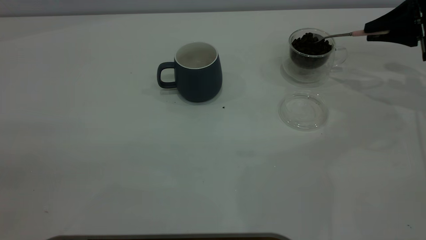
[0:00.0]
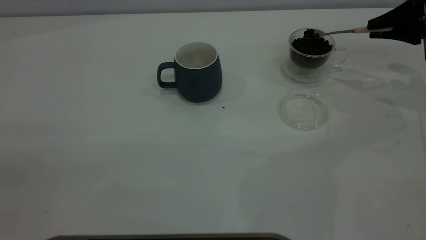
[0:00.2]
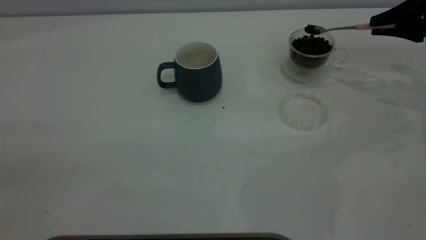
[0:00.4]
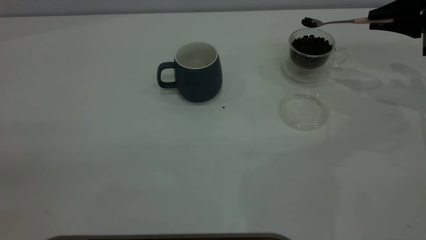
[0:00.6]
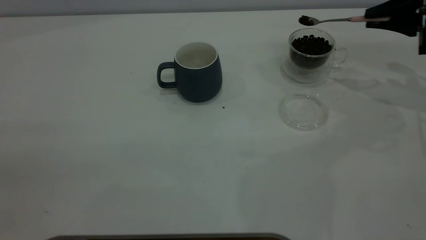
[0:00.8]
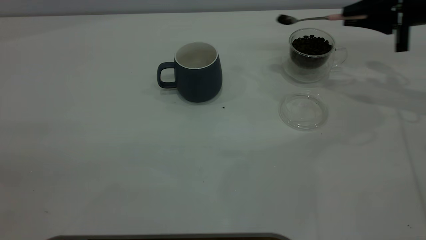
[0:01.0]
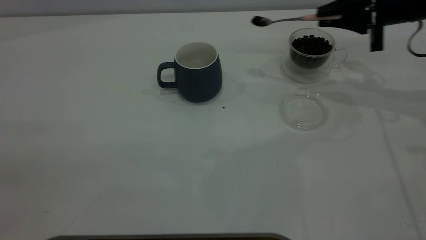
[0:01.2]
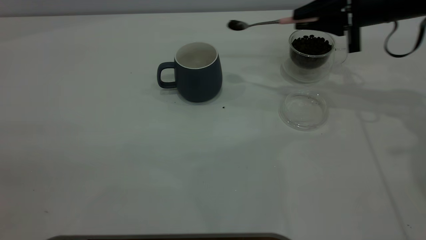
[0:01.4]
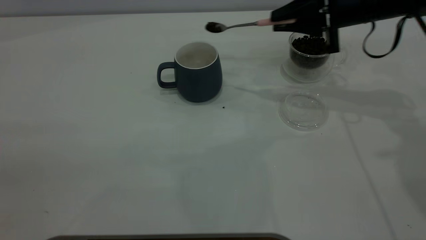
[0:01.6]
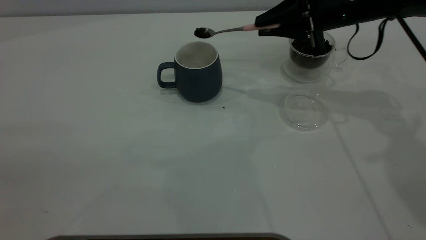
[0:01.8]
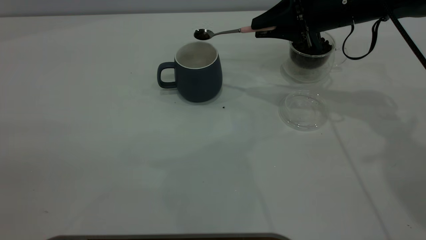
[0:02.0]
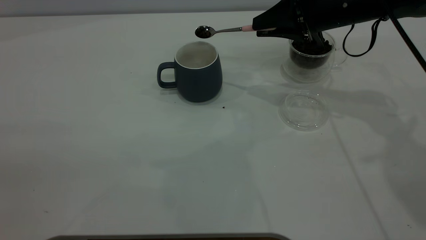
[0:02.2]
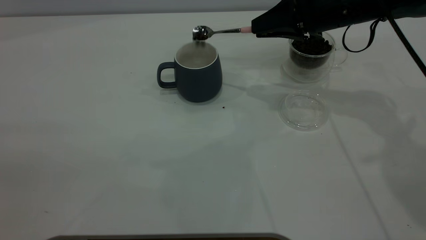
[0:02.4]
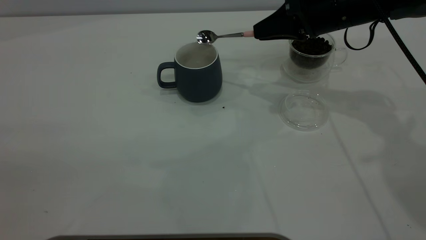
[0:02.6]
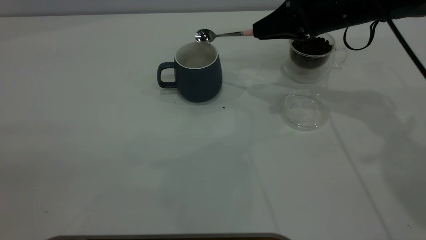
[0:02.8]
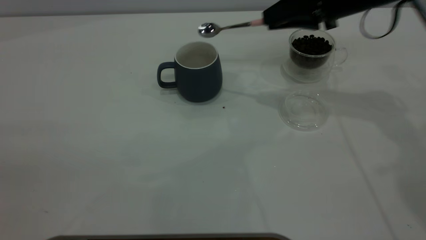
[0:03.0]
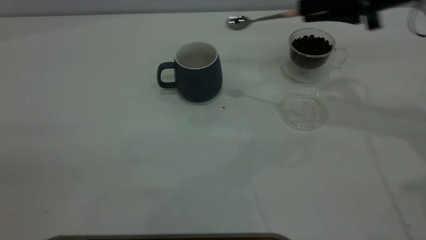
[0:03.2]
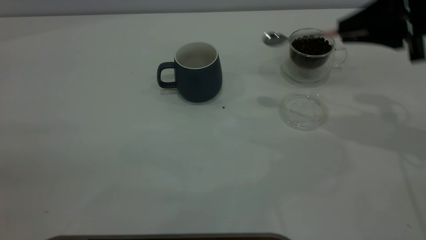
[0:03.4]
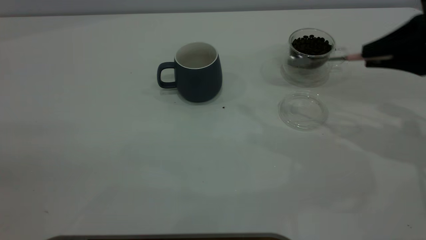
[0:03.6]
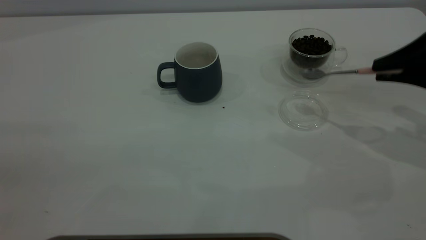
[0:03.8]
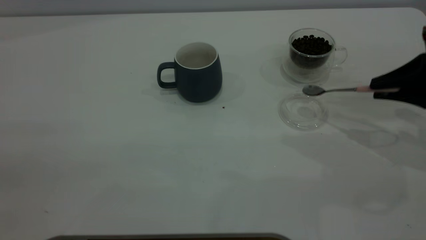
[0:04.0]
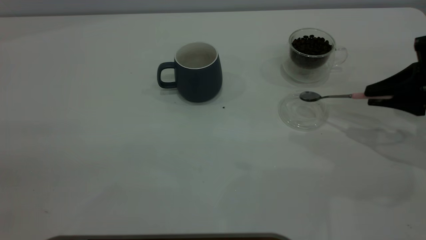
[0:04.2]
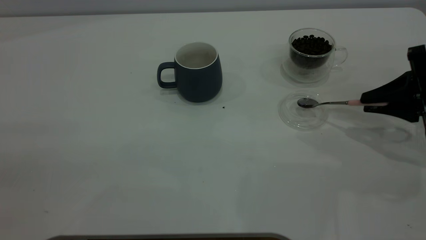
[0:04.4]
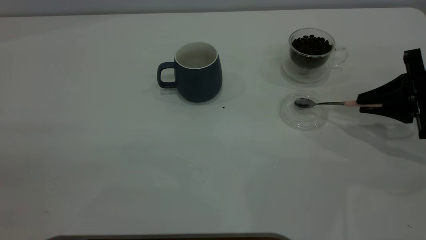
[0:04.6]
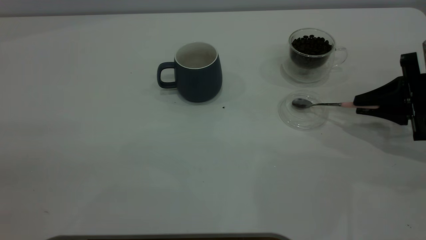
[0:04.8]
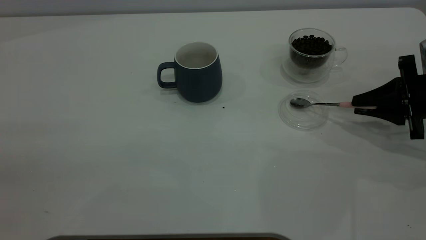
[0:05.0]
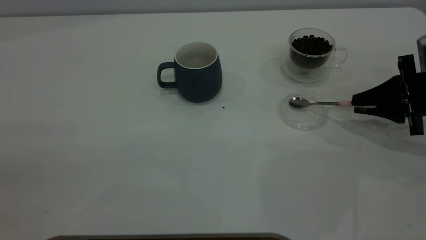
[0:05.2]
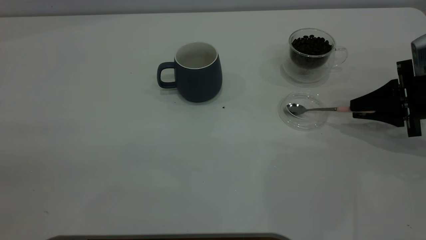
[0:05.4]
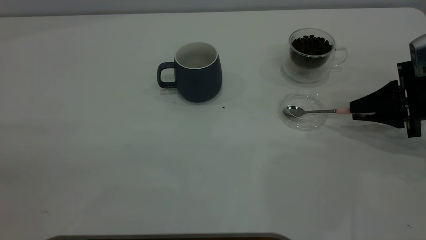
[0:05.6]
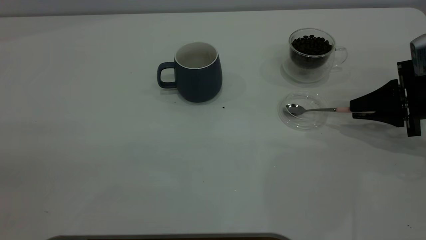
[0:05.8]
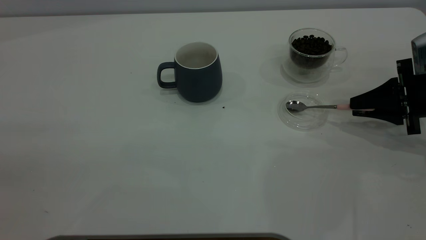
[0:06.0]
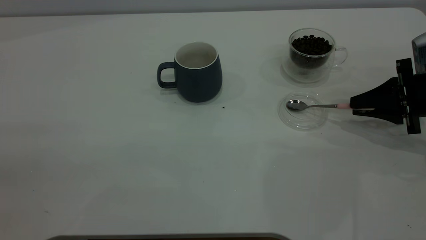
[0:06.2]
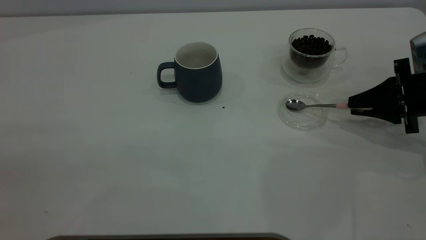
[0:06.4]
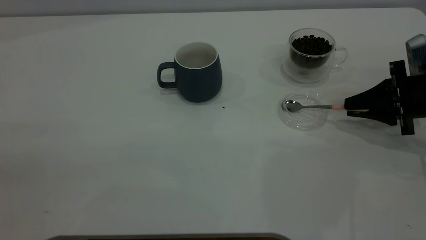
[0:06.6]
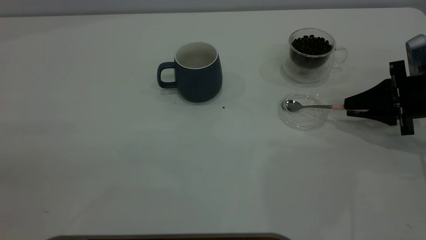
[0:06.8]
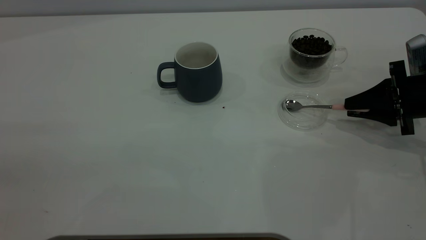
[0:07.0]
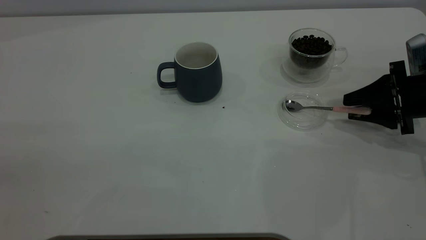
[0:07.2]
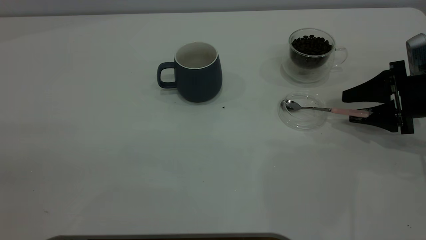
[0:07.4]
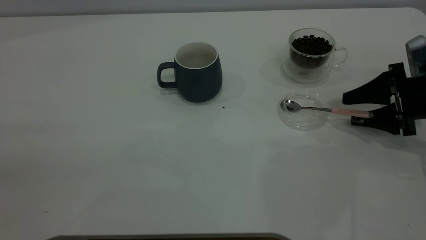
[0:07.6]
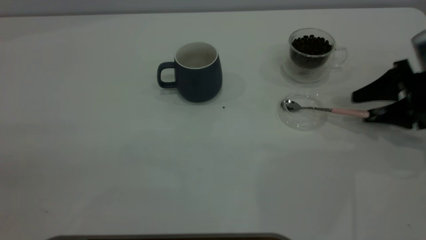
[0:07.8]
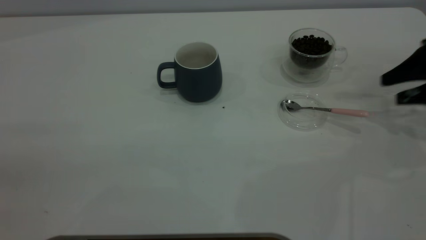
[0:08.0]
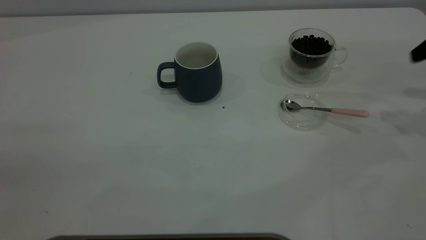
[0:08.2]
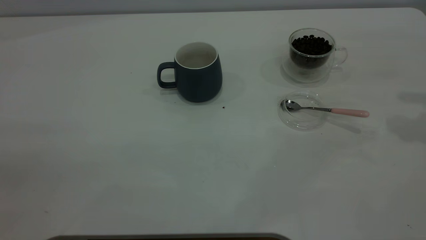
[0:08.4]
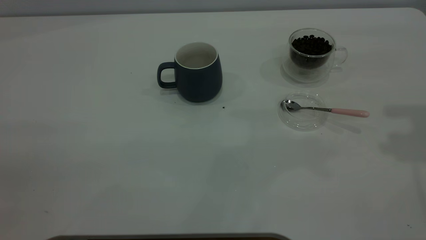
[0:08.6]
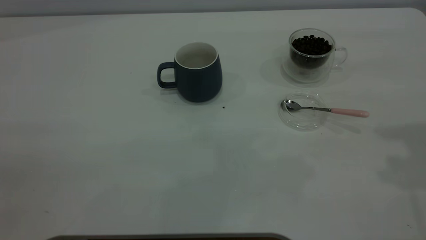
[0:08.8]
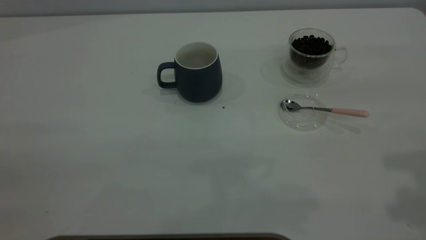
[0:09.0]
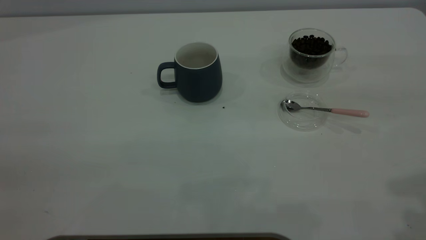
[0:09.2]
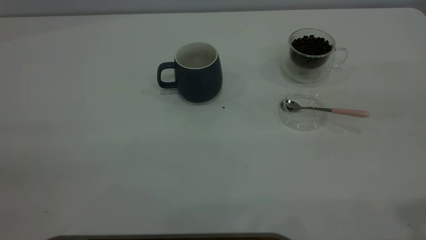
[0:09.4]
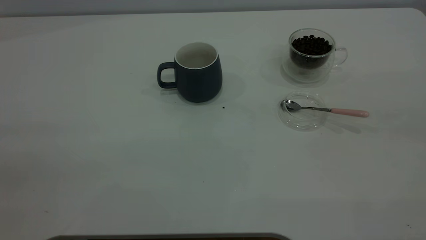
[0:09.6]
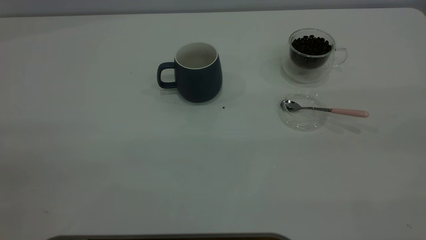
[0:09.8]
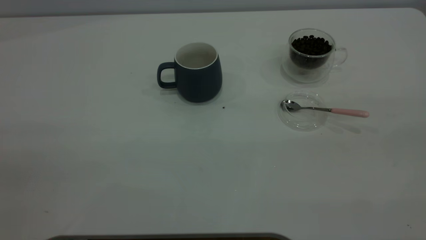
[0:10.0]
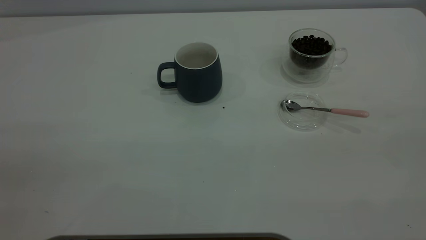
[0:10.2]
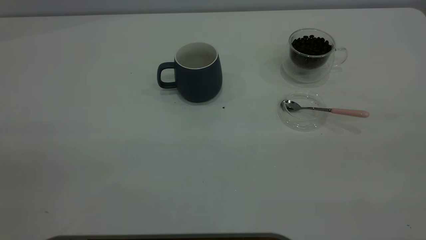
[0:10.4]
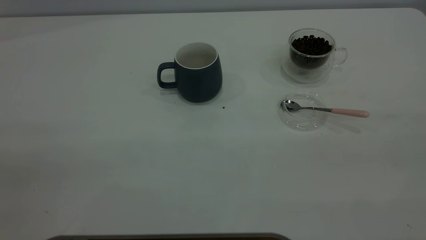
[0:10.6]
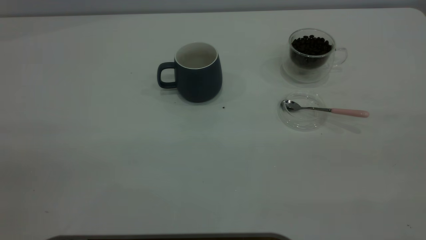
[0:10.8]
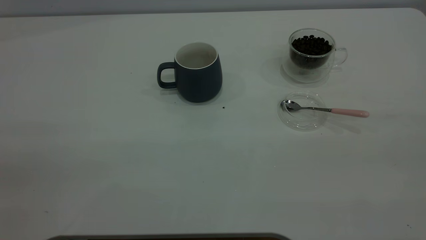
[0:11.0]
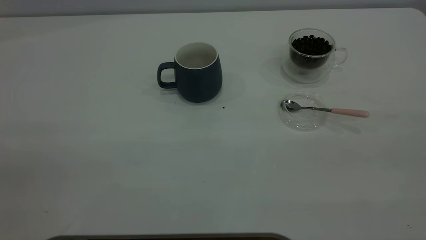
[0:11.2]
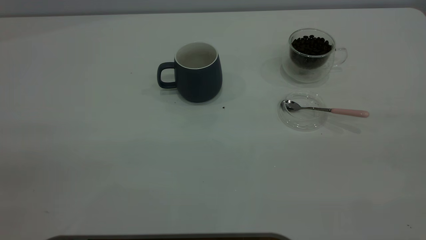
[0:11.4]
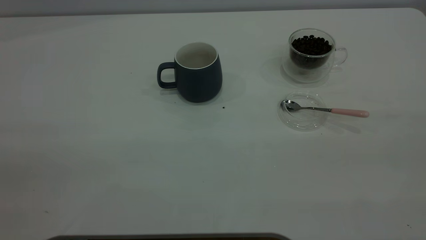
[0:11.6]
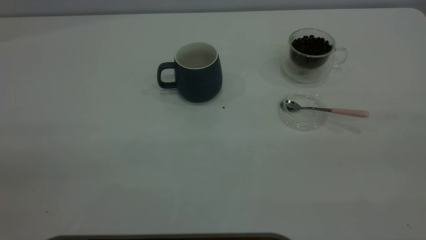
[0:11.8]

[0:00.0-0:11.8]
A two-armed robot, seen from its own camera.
Task of the whole recording: the left gripper place the grey cup in the center of the table, the right gripper take the pink spoon from the cup lid and scoop out the coffee beans from the coffee cup and put them into the grey cup, the right gripper put the spoon back into the cup lid.
Step, 0:00.0 to 0:02.8: Scoop a spoonful of beans into the cup.
Step, 0:03.0 to 0:07.8: Place the spoon back in its original place.
0:00.0 to 0:01.4: The right gripper heads to the left, covering some 15 cm.
0:01.4 to 0:03.0: The right gripper changes place by roughly 5 cm.
0:03.0 to 0:04.4: The right gripper goes about 20 cm to the right, downward and backward.
0:04.4 to 0:06.0: The grippers move only a little.
0:06.0 to 0:07.4: The right gripper opens its fingers.
0:07.4 to 0:08.8: The right gripper travels upward by about 30 cm.
0:10.4 to 0:11.8: Both grippers stay about where they are.

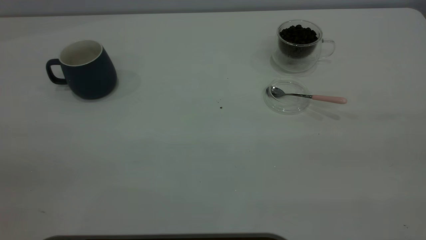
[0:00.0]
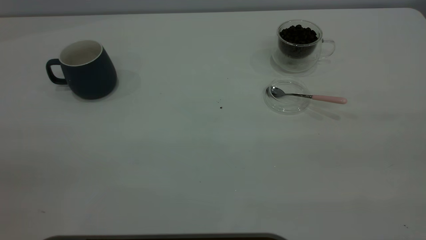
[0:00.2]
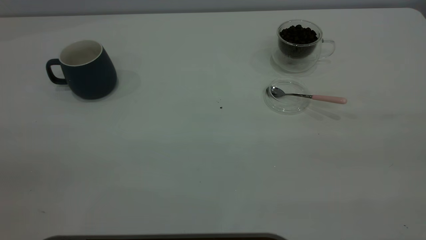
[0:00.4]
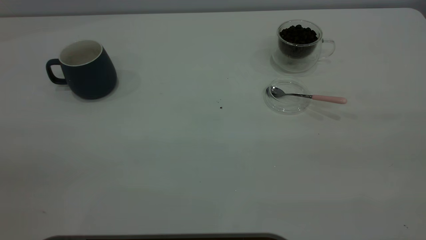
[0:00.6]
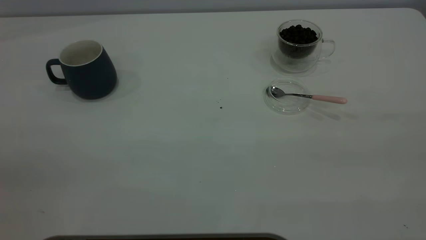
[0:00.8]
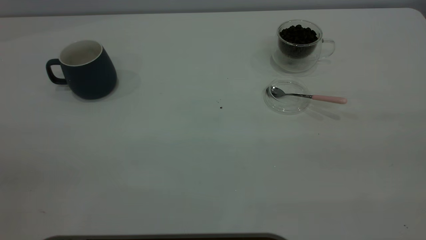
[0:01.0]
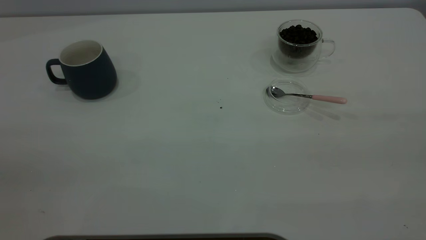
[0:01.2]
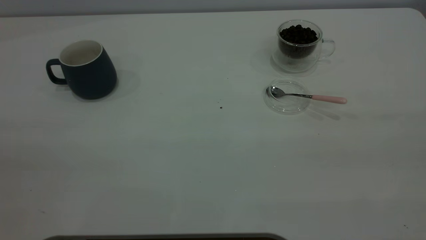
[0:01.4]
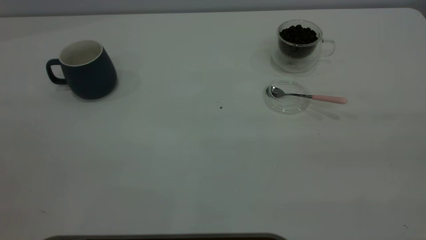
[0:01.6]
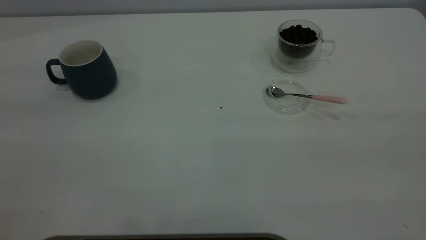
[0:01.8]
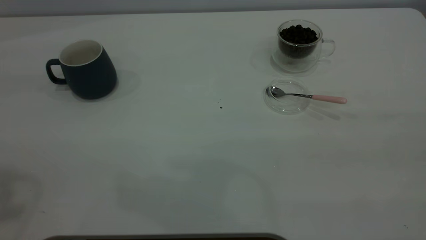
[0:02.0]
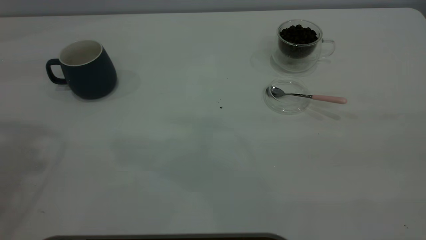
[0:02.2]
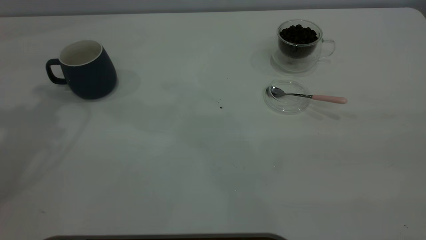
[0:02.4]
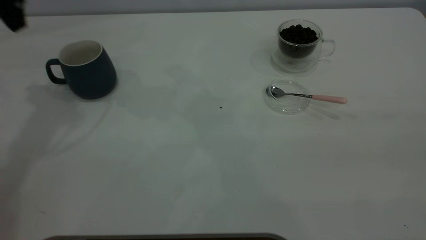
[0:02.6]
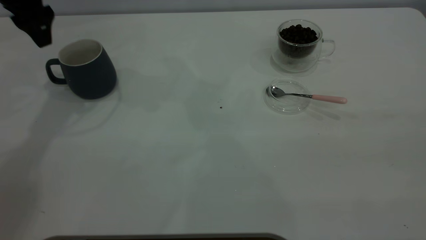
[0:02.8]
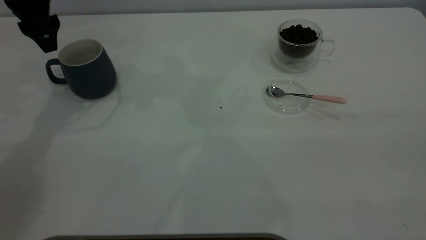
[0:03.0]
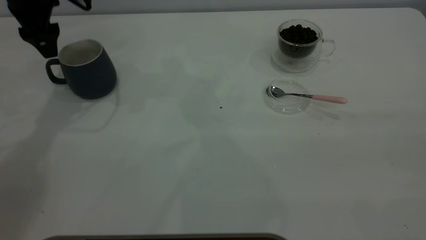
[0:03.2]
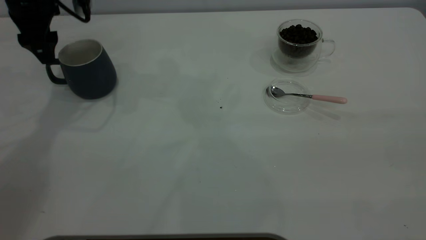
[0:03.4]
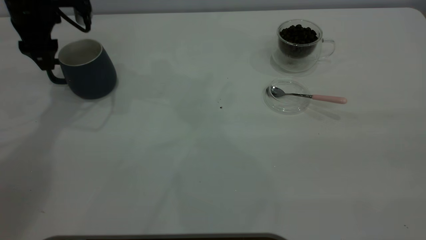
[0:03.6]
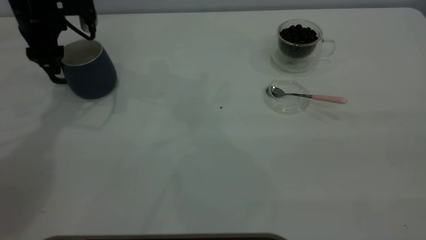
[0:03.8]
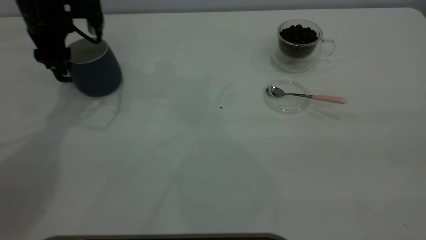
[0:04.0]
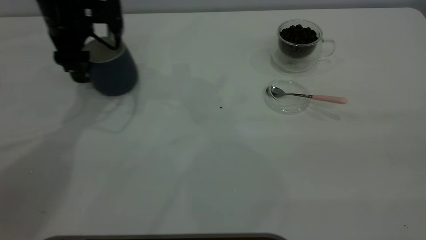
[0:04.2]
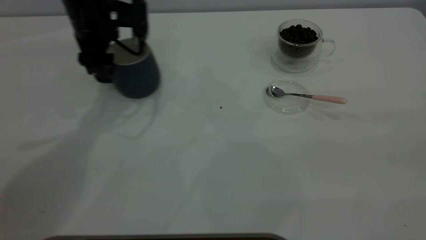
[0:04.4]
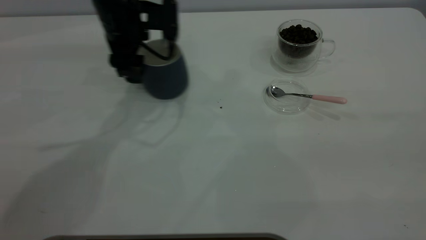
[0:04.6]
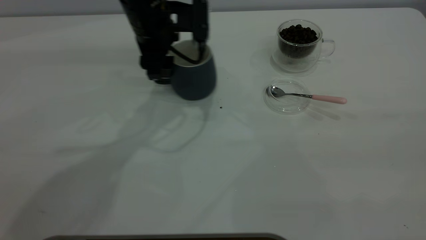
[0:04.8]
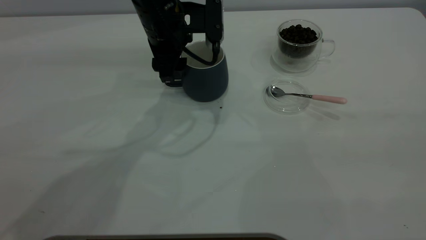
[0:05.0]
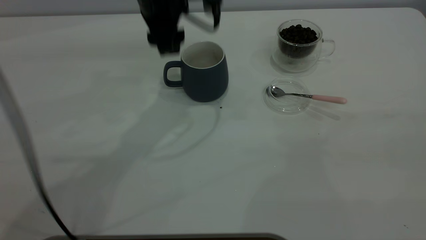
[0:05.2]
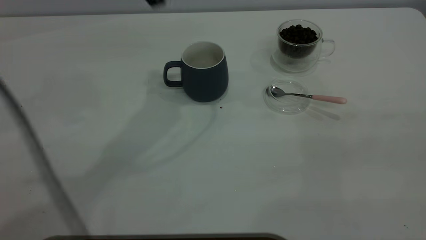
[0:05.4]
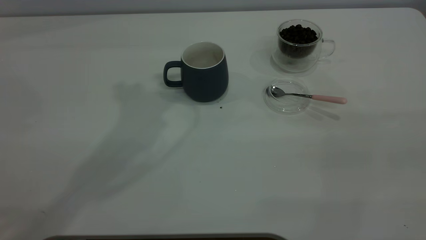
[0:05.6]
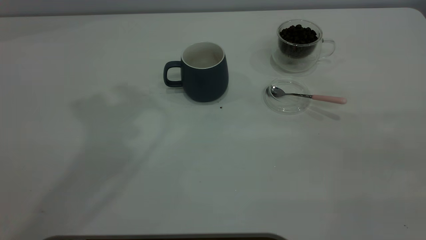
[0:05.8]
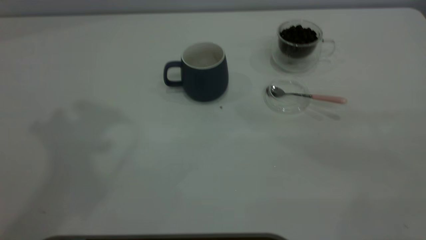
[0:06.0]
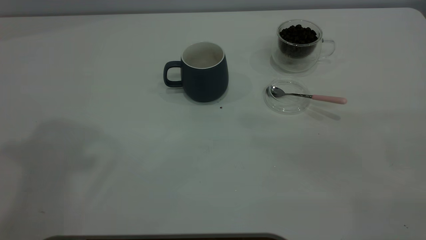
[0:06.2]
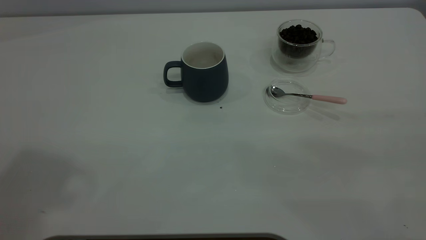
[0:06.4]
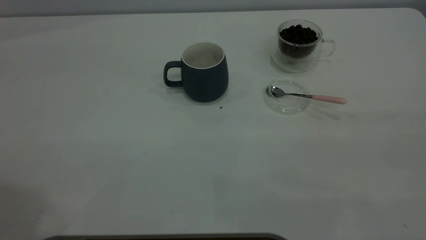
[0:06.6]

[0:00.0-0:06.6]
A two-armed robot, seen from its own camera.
Task of the whole recording: the left gripper place the grey cup in the center of the table, the right gripper take the pink spoon from the cup lid and scoop out the coffee beans from the coffee cup and put them into the grey cup, the right gripper put the spoon back into the cup lid.
Step, 0:00.0 to 0:05.0: Move the cup to the center of view.
0:01.6 to 0:03.2: The left gripper heads forward and downward, covering approximately 50 cm.
0:03.2 to 0:05.0: The left gripper goes about 20 cm to the right.
0:05.0 to 0:06.6: The left gripper travels upward, backward and to the left by roughly 50 cm.
